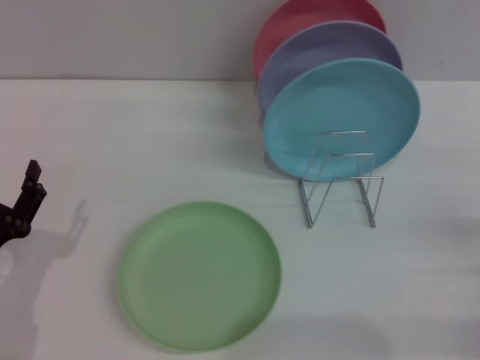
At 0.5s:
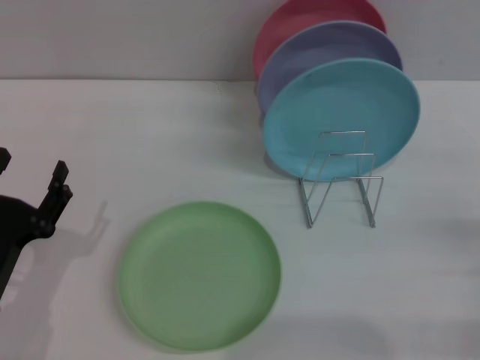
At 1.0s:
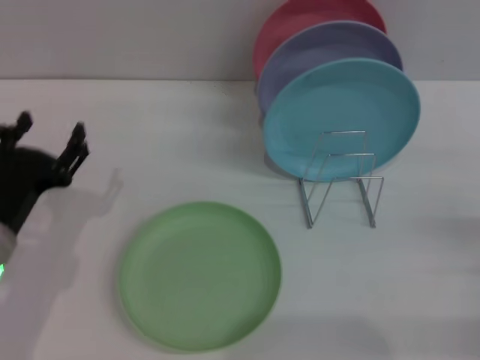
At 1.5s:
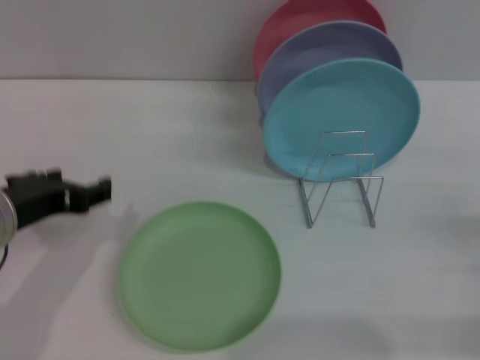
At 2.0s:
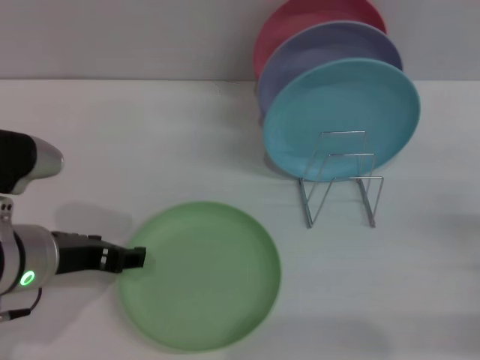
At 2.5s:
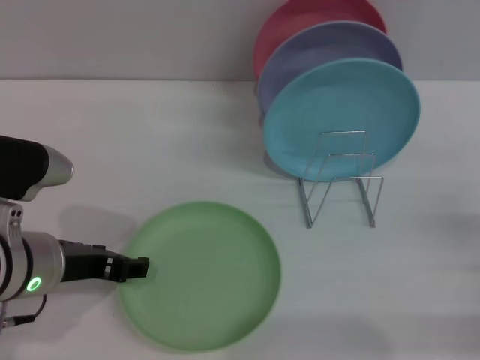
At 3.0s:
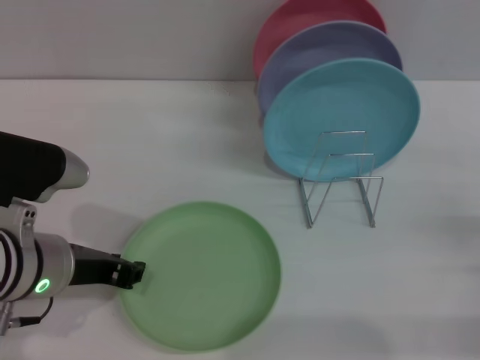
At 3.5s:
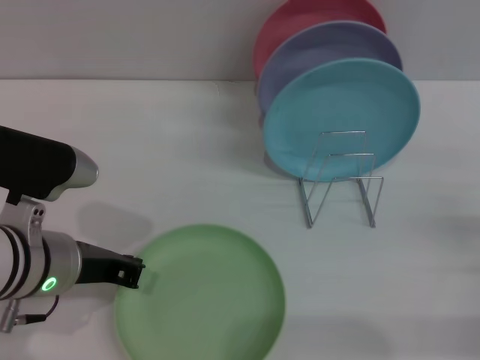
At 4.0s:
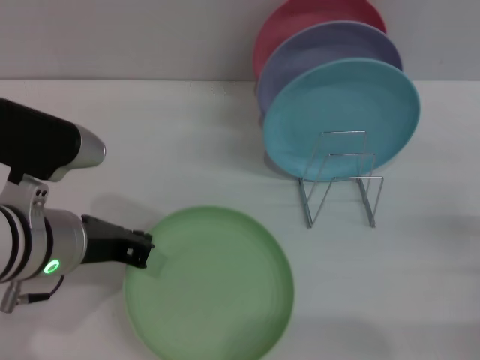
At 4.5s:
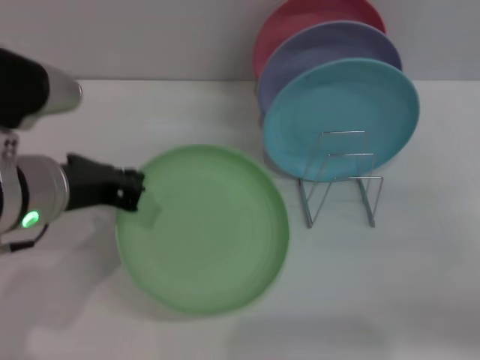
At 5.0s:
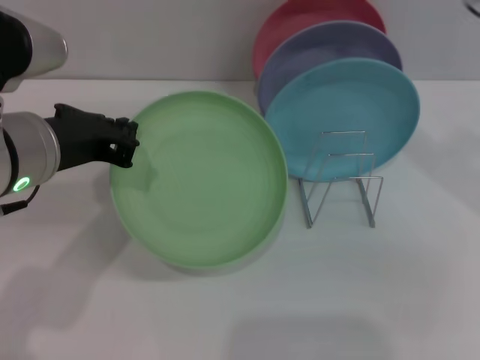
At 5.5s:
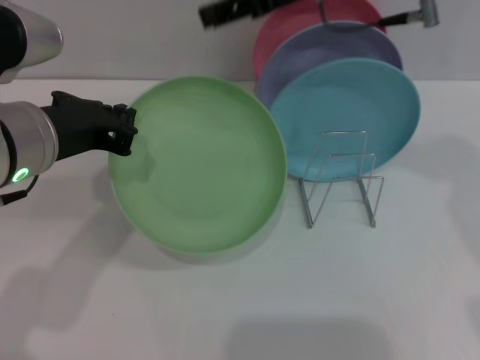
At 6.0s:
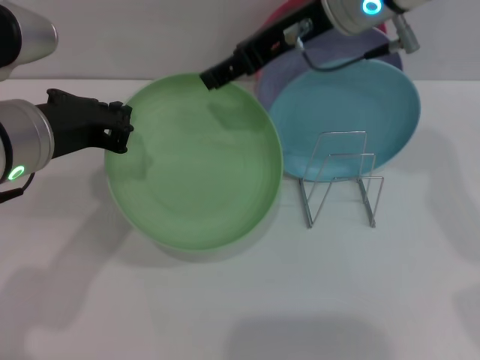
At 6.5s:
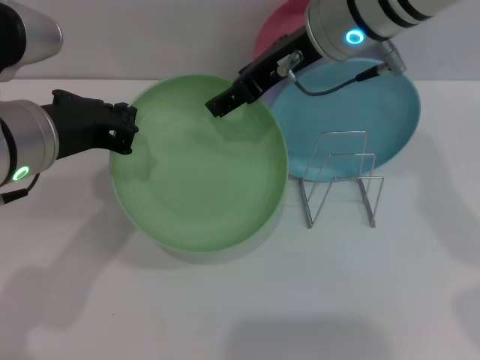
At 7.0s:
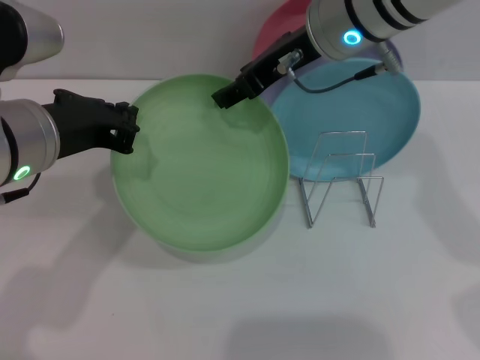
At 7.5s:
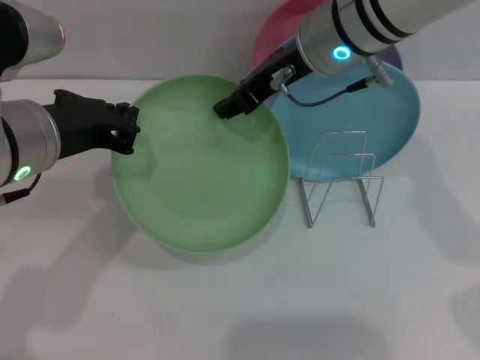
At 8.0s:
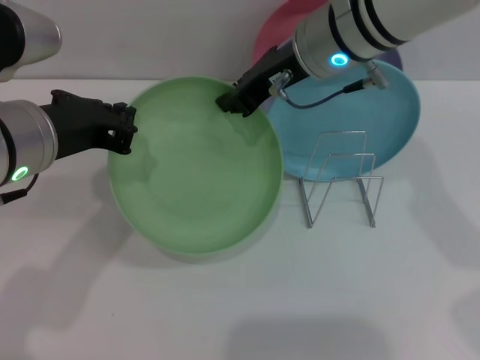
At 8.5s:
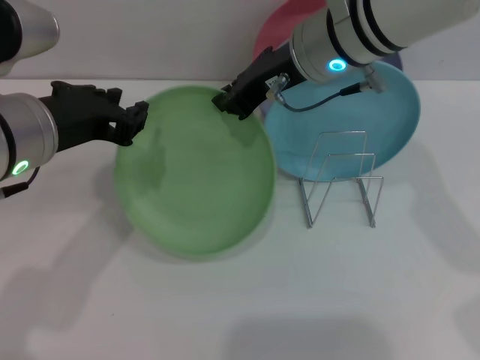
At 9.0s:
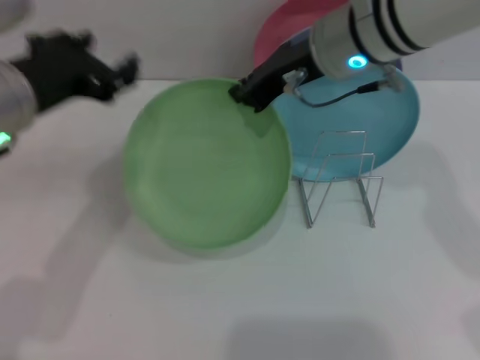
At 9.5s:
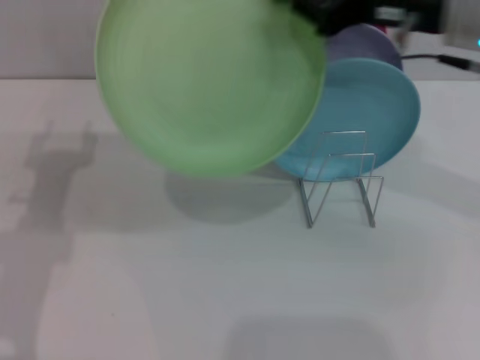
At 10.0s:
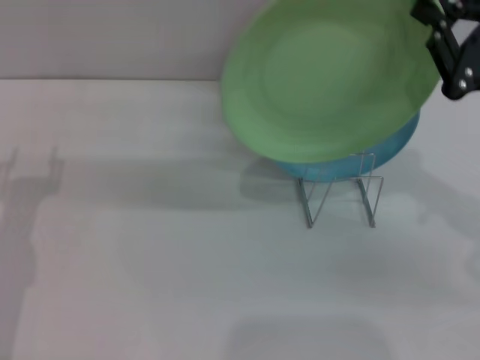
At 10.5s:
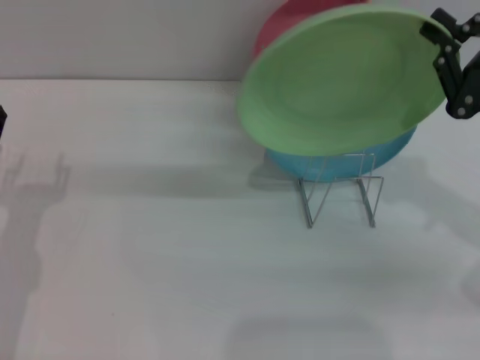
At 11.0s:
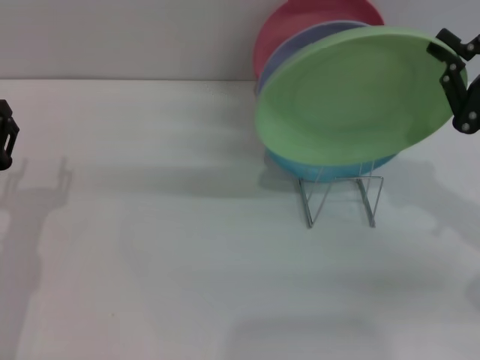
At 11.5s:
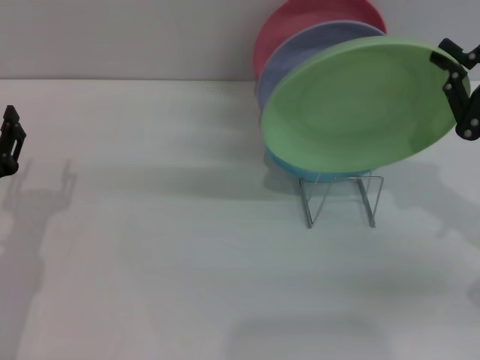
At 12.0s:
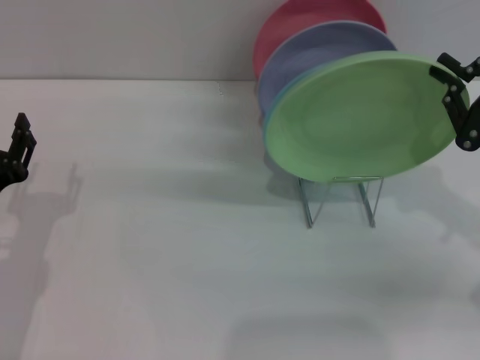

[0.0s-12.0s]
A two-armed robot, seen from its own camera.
Task of the whole recording: Grip the plate with one hand, pass it to the other, then set it on the shelf.
Step, 0.0s to 4.0s: Pick up the plate with the left gripper.
Step, 4.5s to 8.5s: Pass the plate from the left gripper to the right gripper.
0.0s to 2.0s: The left gripper moves upward, to the right and forward, about 15 cm.
2.0s to 4.0s: The left gripper closes.
4.0s to 6.0s: The left gripper moves upward, about 5 cm. Meanwhile the right gripper goes some 40 cm to the left, upward and forward.
6.0s to 8.0s: The right gripper closes up.
8.0s to 10.0s: The left gripper shifts some 15 cm downward and to the left, and opens its fingers; the right gripper shifts some 25 cm to the right and backward.
10.0s to 12.0s: The right gripper moves approximately 5 cm.

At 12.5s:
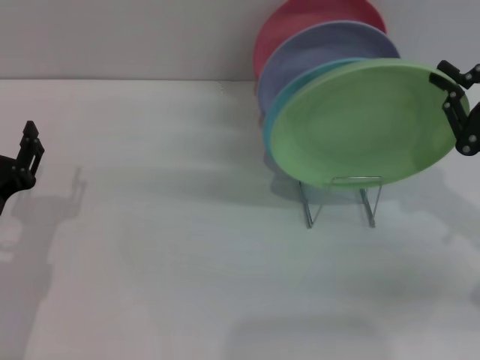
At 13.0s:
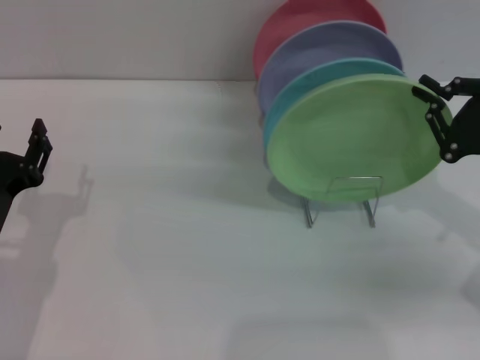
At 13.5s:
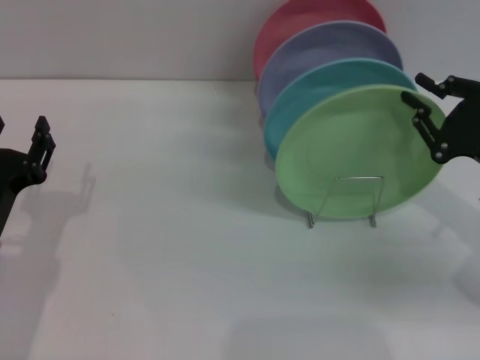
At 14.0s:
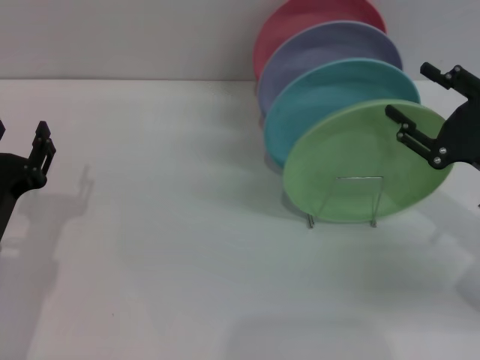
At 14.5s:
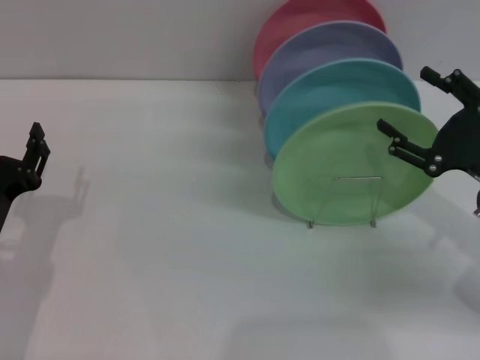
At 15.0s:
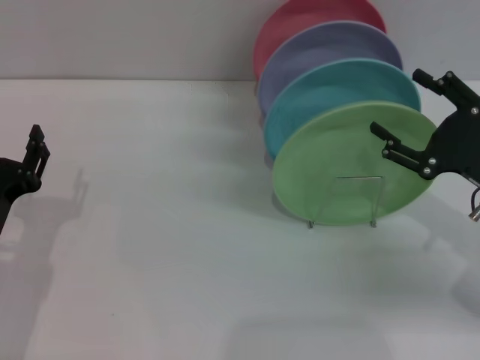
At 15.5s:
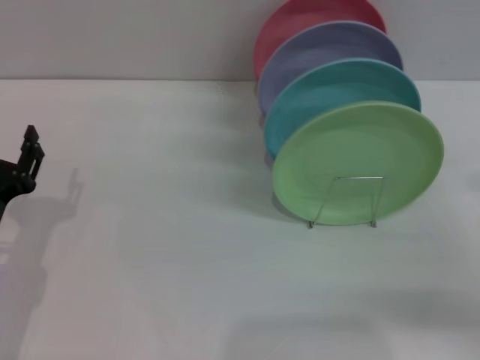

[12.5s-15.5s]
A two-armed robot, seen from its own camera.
Task of the whole recording: Grip the plate with one hand, pass it to the other, then set it on the shelf.
12.5s to 14.0s: The right gripper opens up.
14.0s to 15.5s: The right gripper shifts by approximately 5 cm, and opens up.

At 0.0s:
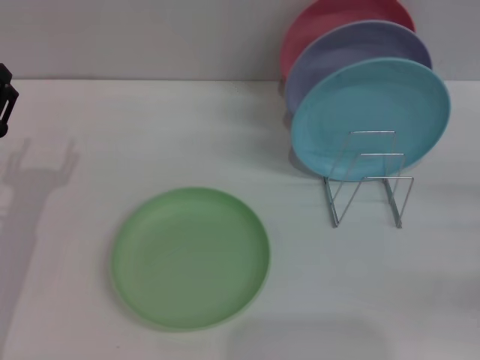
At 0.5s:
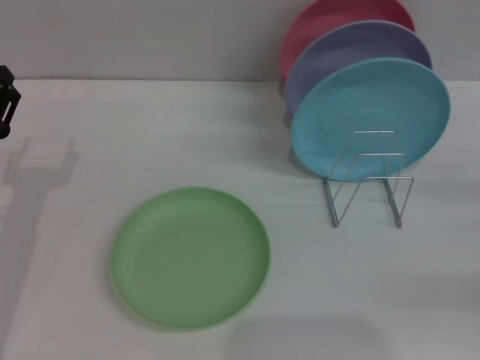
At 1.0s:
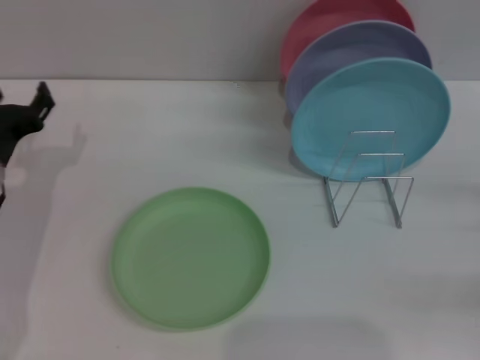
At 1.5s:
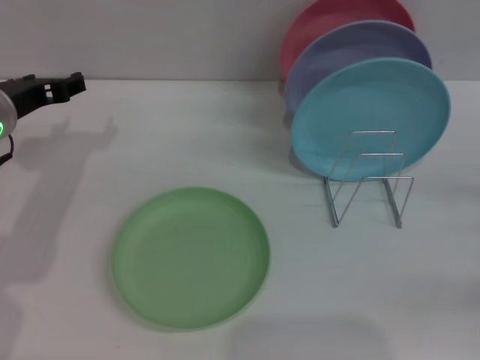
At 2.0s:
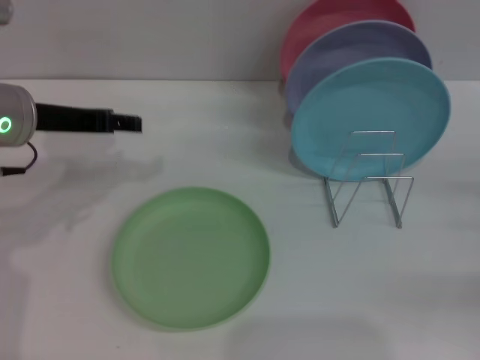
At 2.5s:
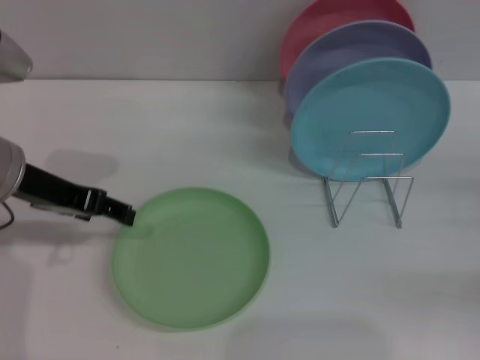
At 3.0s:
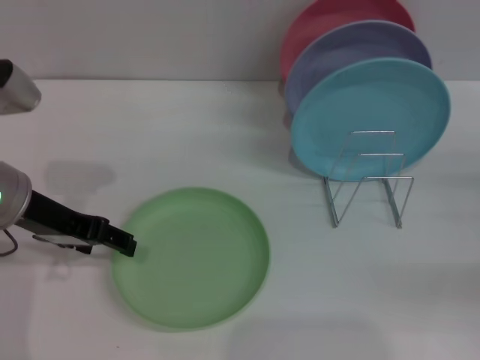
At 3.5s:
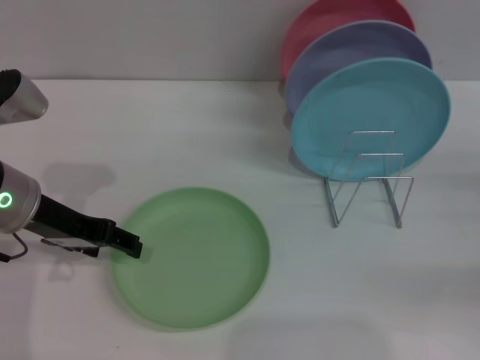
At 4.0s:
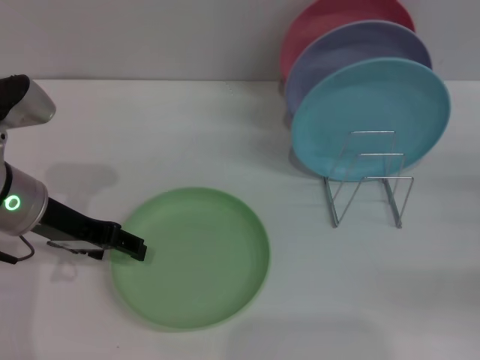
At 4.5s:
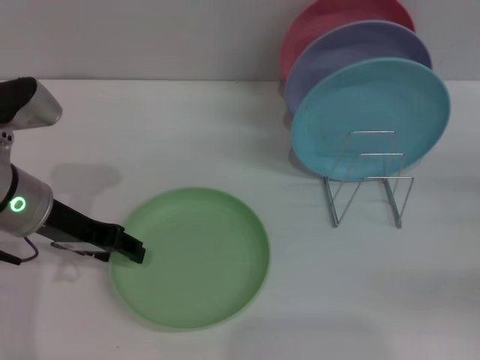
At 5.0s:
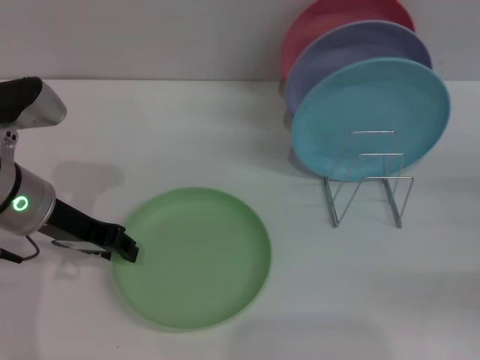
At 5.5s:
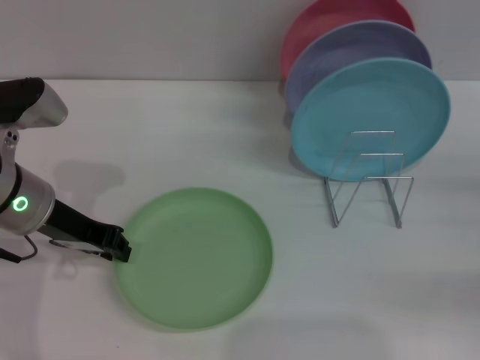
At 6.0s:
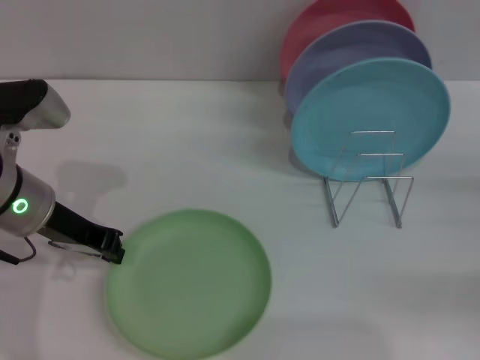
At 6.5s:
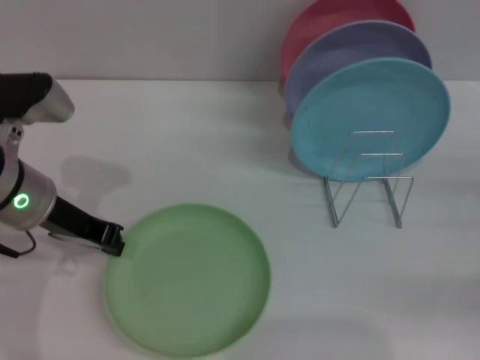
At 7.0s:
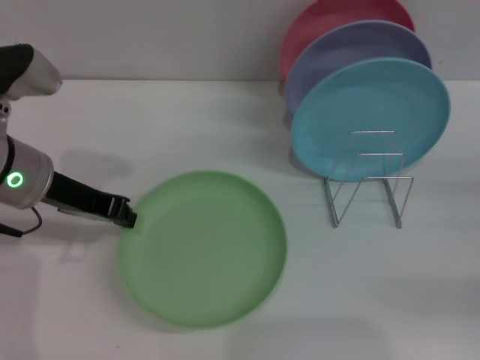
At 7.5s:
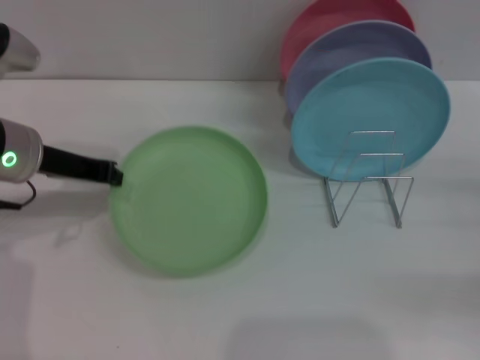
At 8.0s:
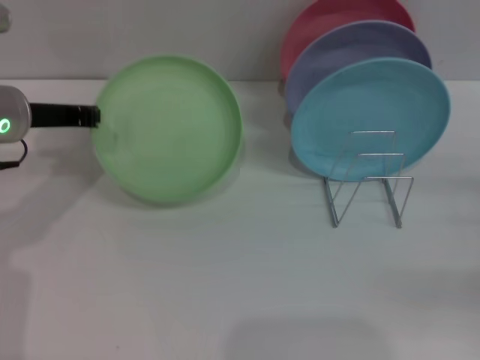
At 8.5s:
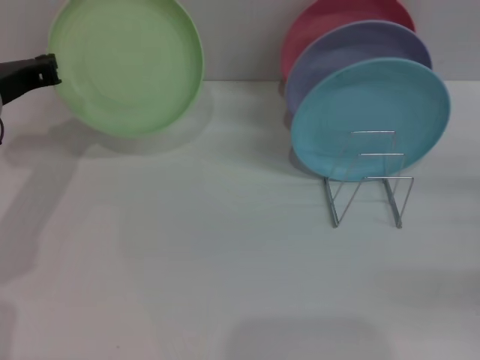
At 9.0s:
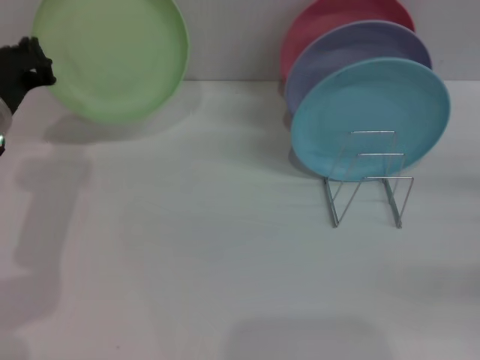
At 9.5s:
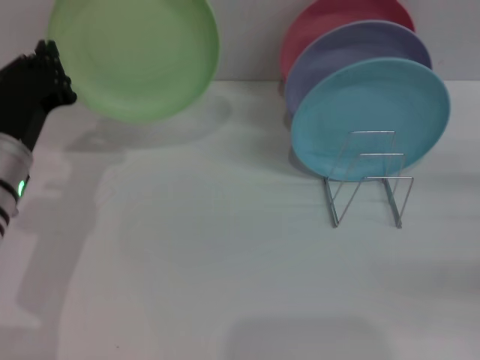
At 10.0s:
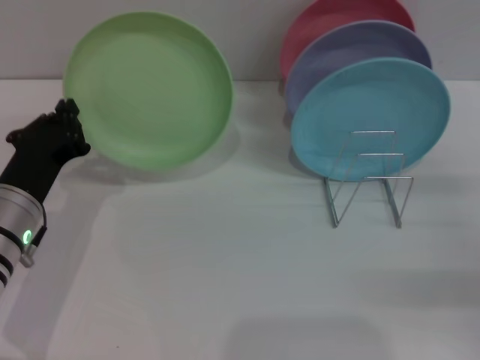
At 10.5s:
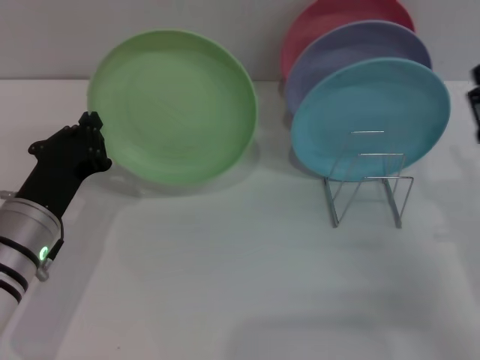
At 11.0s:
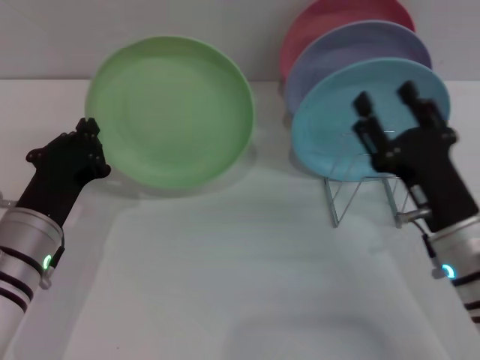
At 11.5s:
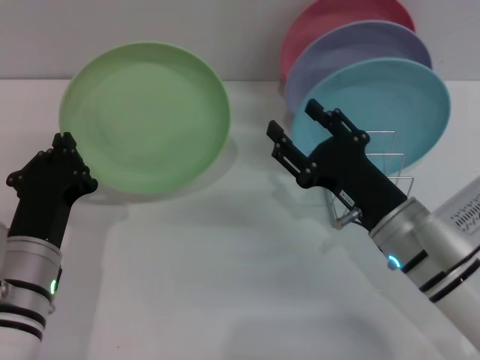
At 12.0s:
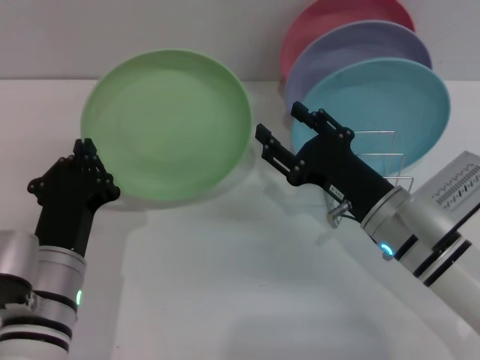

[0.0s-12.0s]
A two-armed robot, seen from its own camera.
Task of the whole recording: Grip the plate with one hand, pass it to the other, then set it on the shelf.
Step, 0.0s to 10.0s: Pick up the plate with the left gripper.
0.0s to 2.0s: The left gripper is displaced upward, forward and to the right by about 15 cm.
2.0s to 4.0s: The left gripper moves some 5 cm.
4.0s to 6.0s: The left gripper closes up.
6.0s to 8.0s: The left gripper changes place by approximately 5 cm.
8.0s to 10.0s: The left gripper goes some 15 cm backward and downward.
10.0s to 12.0s: The left gripper moves backward and to the right, some 10 cm, while the right gripper is displaced to the left by roughly 20 cm.
